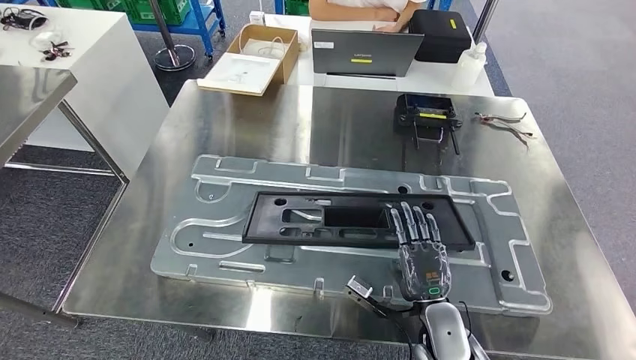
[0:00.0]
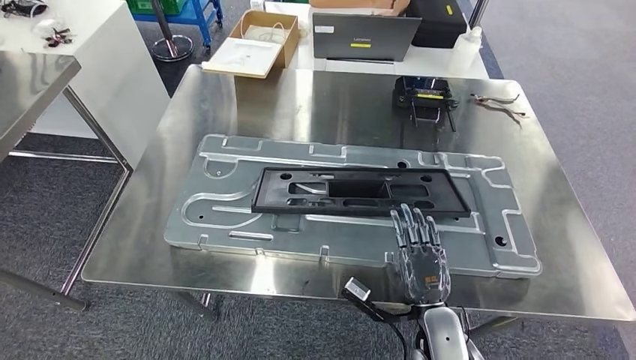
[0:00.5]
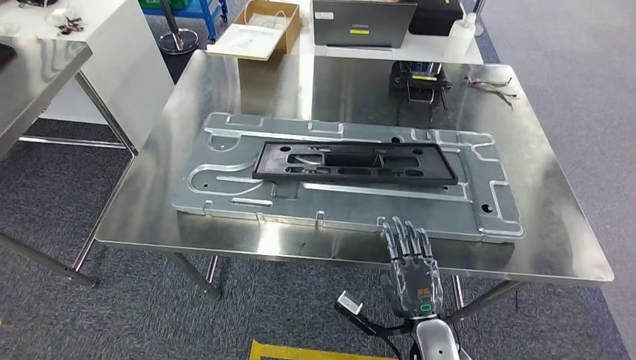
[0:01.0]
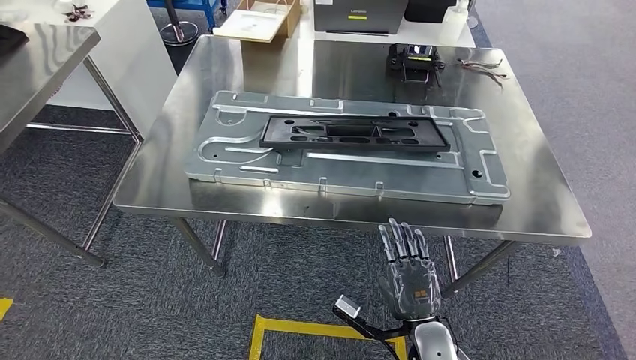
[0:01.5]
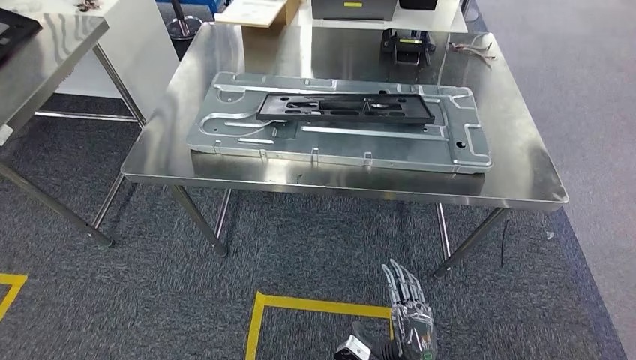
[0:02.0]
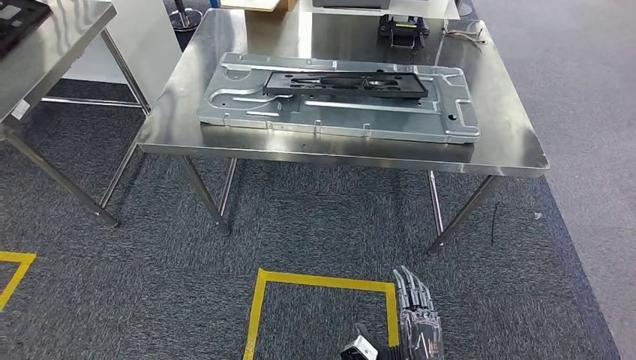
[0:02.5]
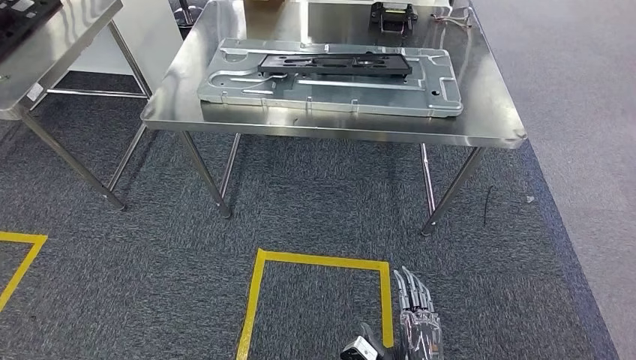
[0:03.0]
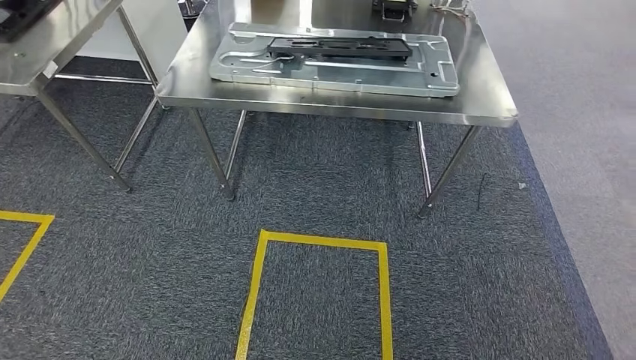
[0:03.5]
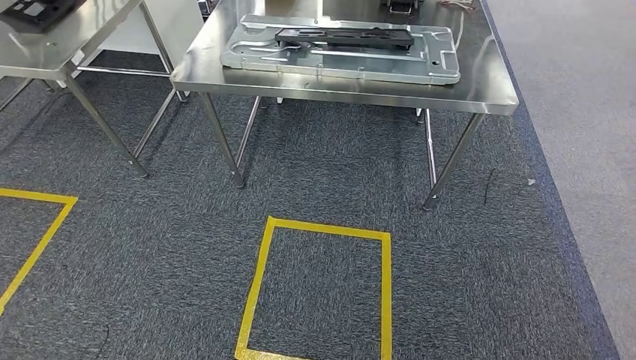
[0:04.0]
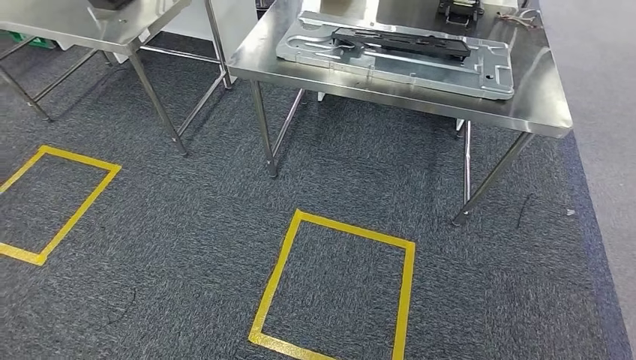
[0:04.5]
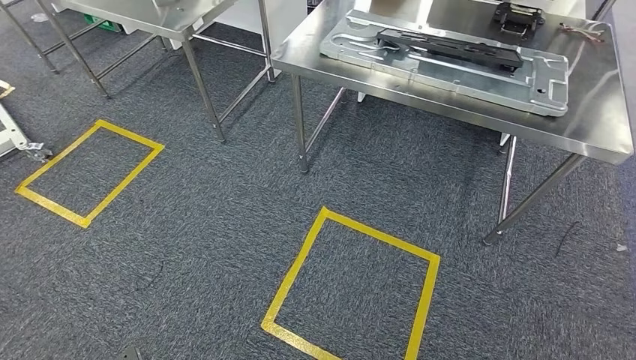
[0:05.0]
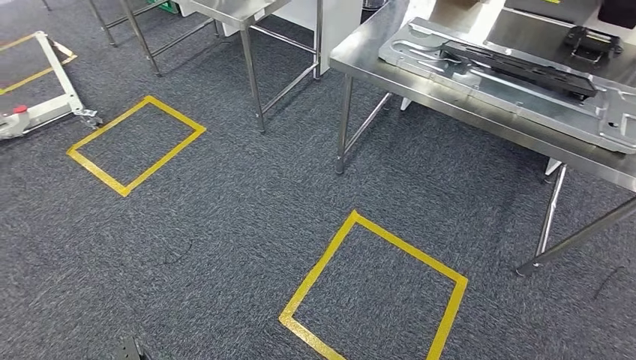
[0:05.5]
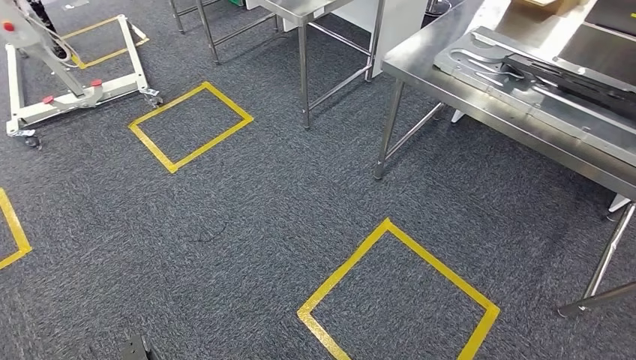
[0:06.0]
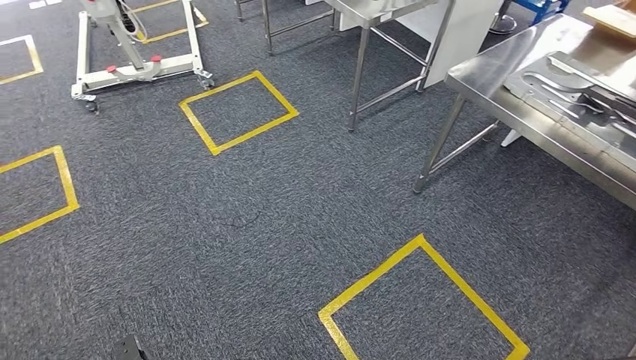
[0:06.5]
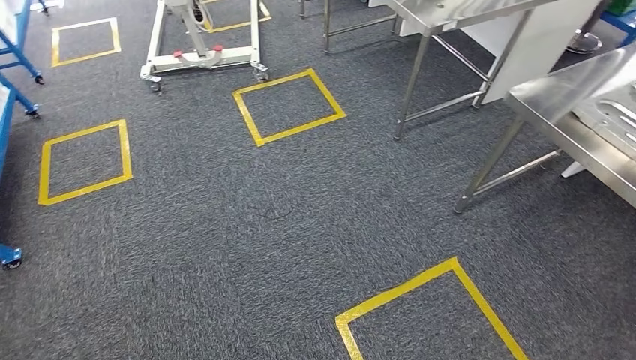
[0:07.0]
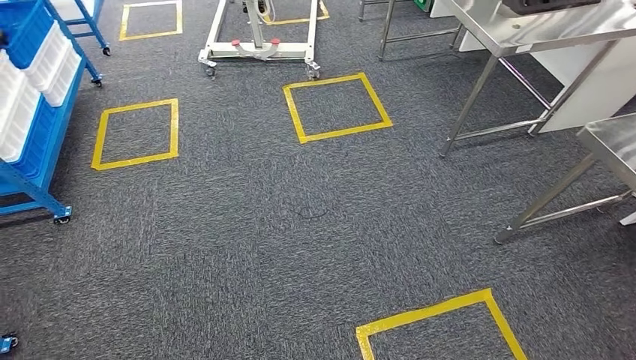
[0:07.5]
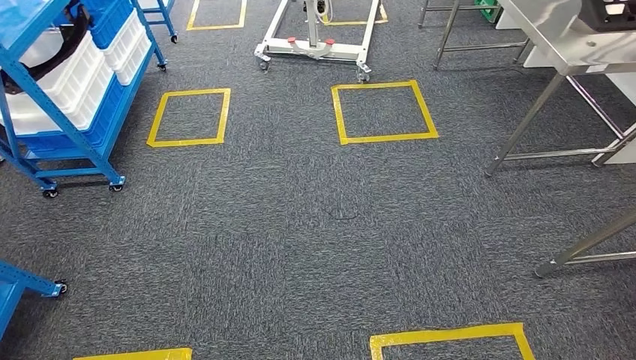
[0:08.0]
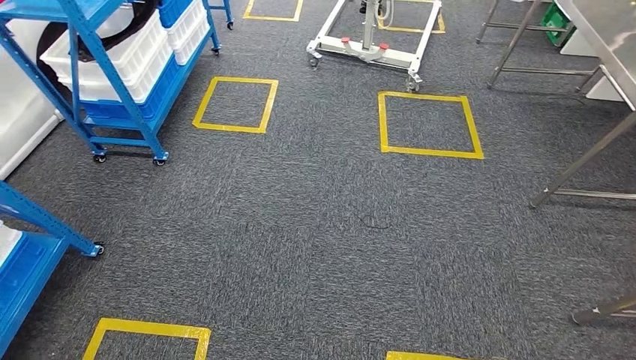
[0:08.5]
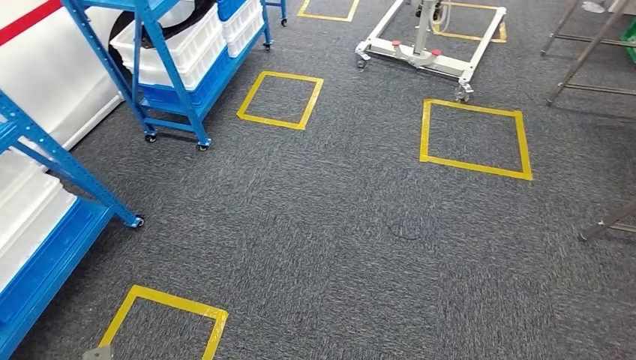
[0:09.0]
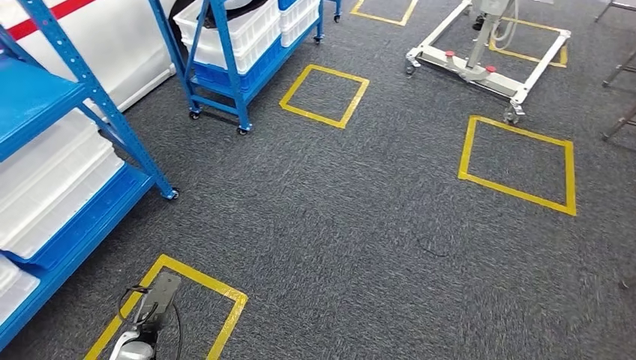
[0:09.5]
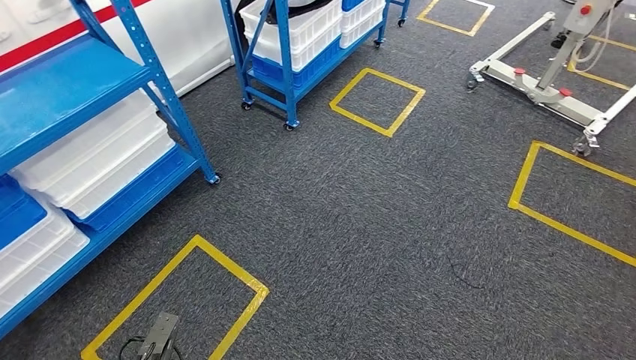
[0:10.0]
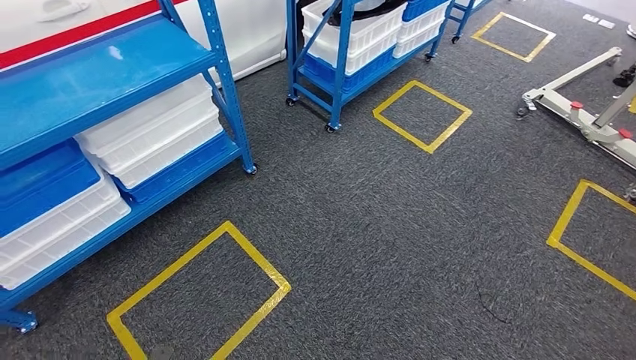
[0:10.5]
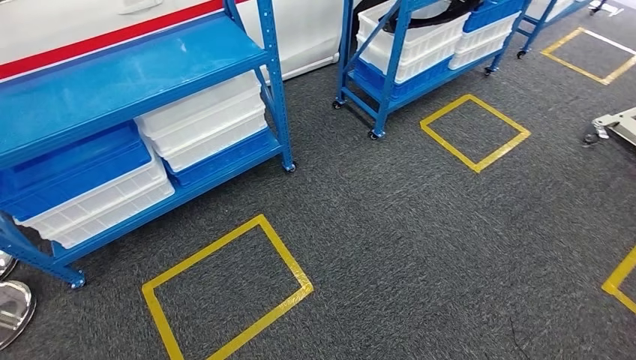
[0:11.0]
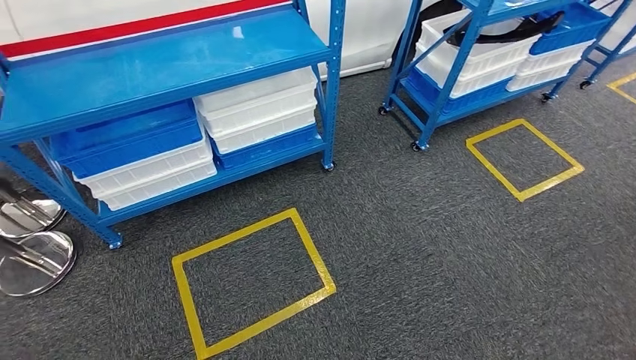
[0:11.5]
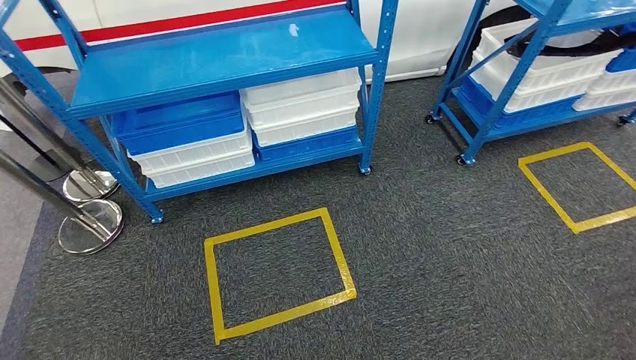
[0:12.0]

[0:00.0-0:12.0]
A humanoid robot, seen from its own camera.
Step, 0:00.0 to 0:02.5: Insert the large material into the corresponding slot on the workbench.

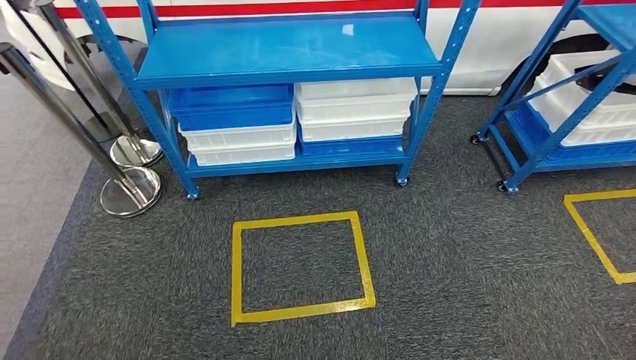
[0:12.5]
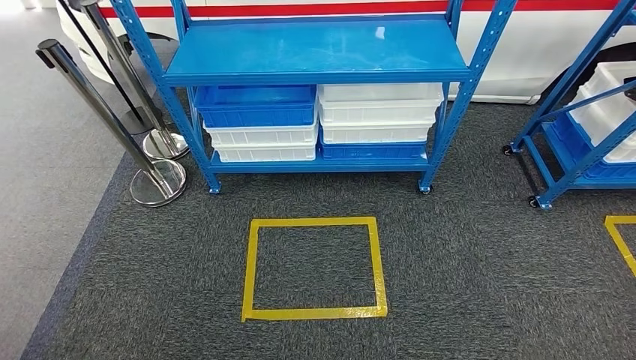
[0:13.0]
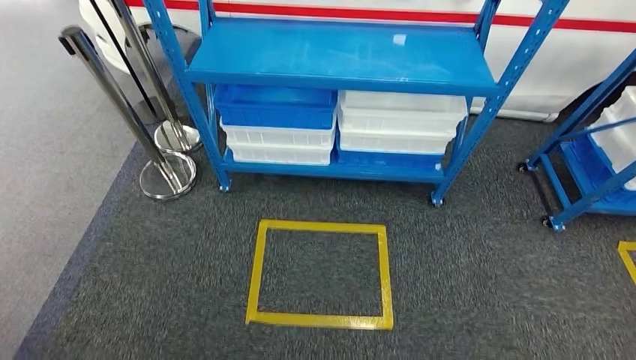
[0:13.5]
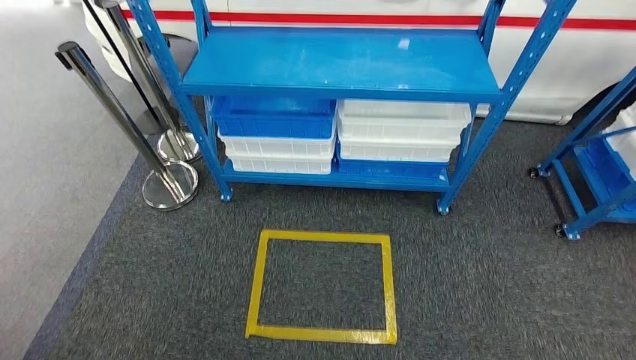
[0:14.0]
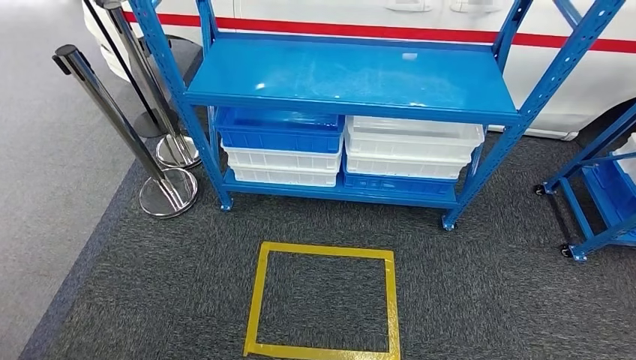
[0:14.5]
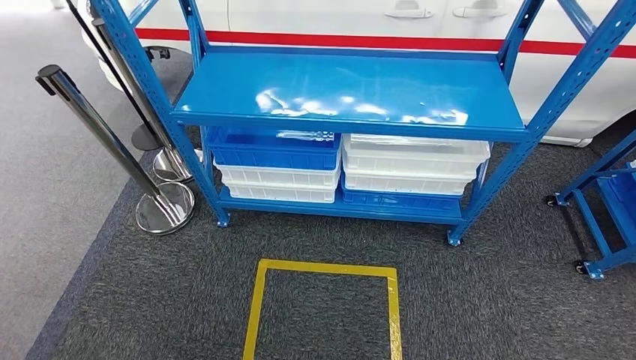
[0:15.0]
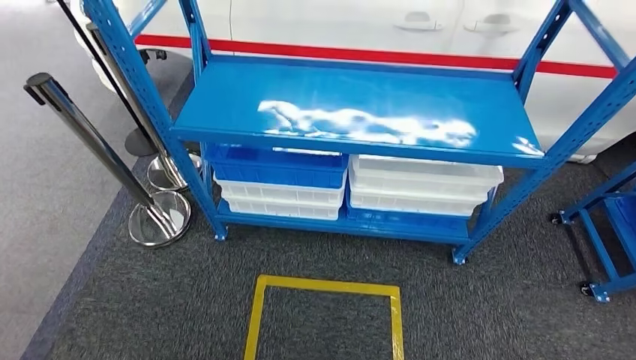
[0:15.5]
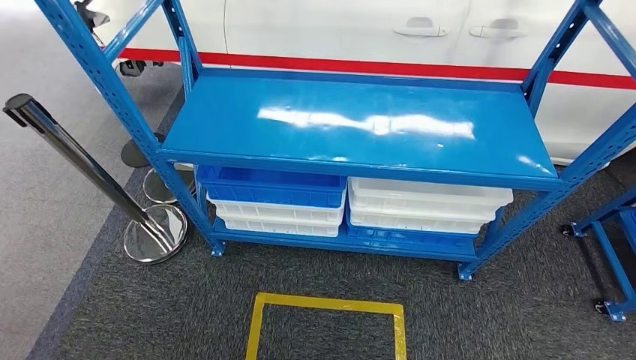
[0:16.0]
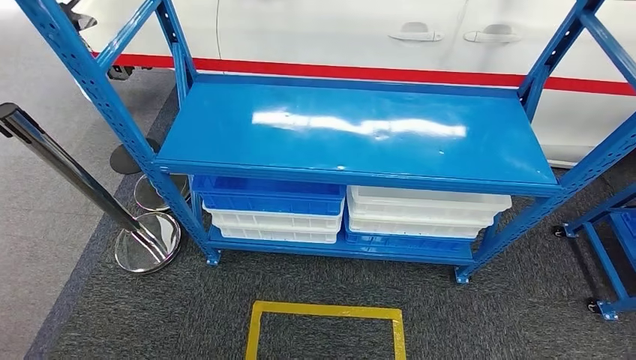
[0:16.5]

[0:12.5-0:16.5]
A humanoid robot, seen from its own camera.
Step, 0:12.5 to 0:16.5: Move to the initial position of the shelf.
